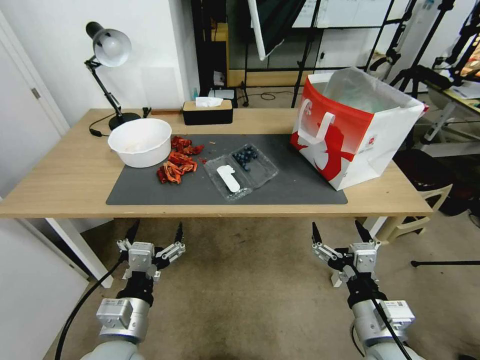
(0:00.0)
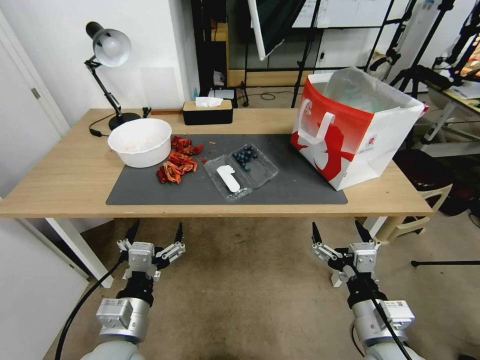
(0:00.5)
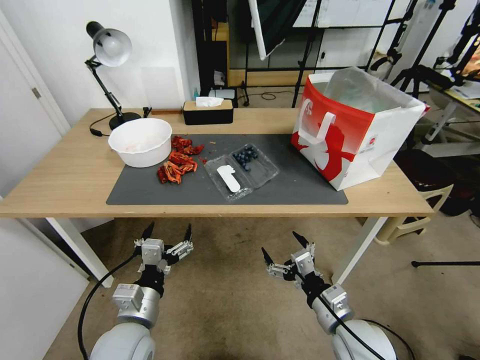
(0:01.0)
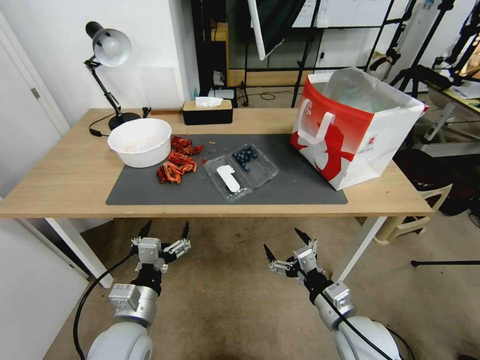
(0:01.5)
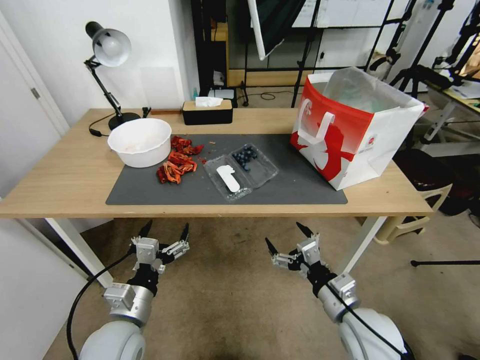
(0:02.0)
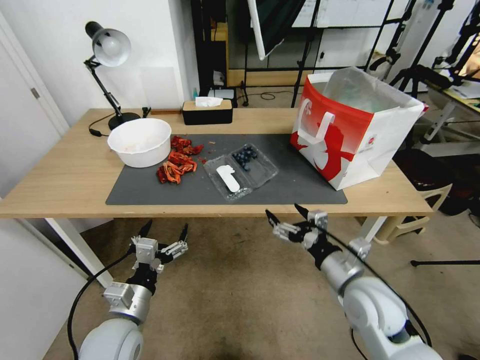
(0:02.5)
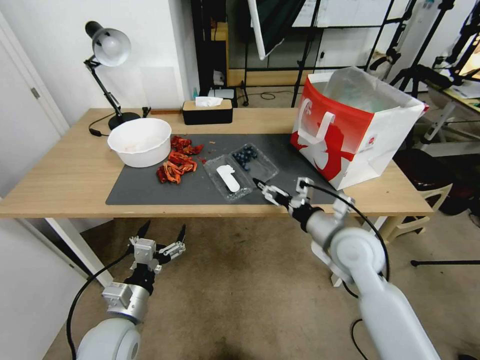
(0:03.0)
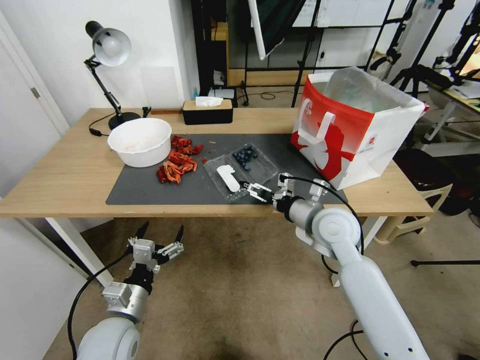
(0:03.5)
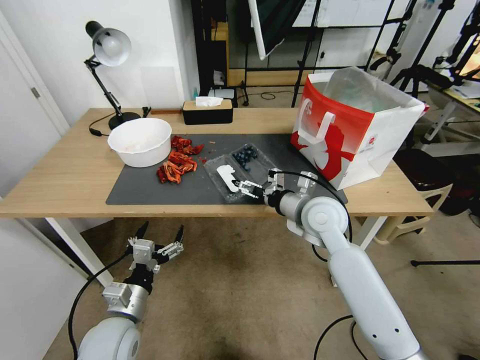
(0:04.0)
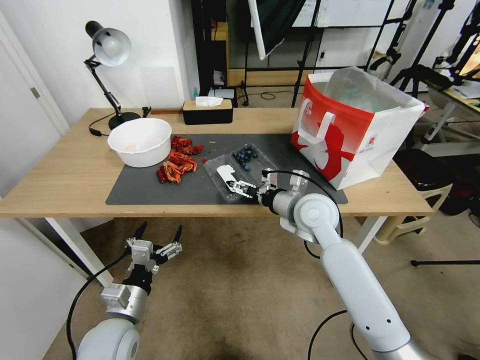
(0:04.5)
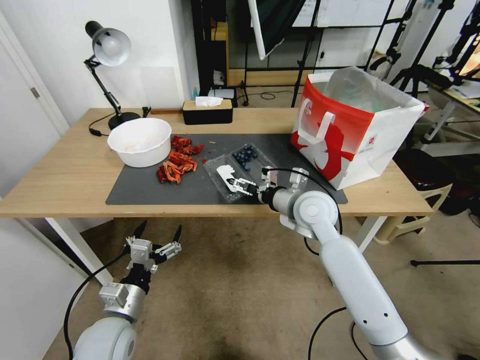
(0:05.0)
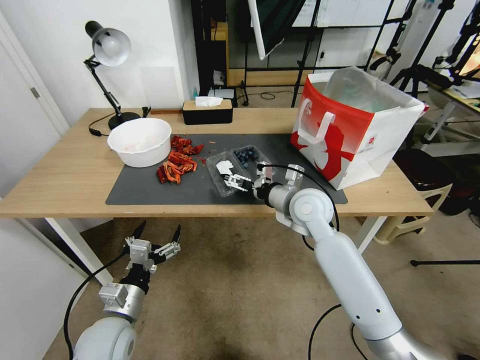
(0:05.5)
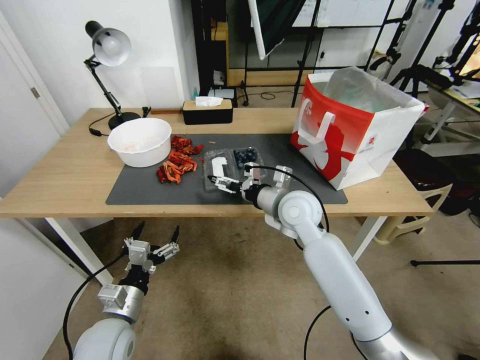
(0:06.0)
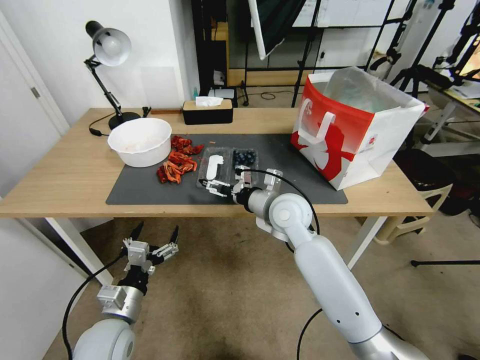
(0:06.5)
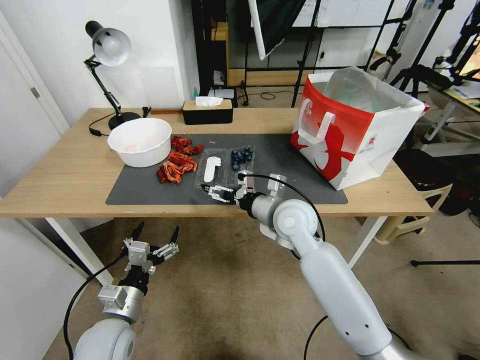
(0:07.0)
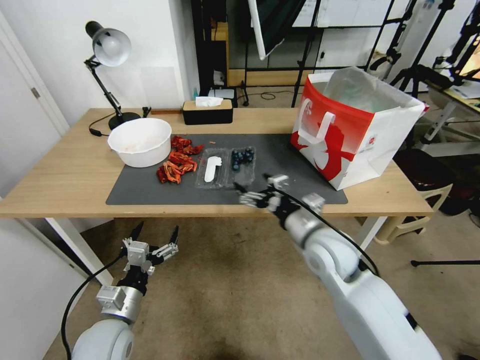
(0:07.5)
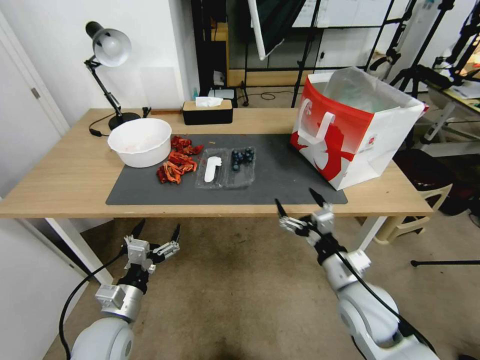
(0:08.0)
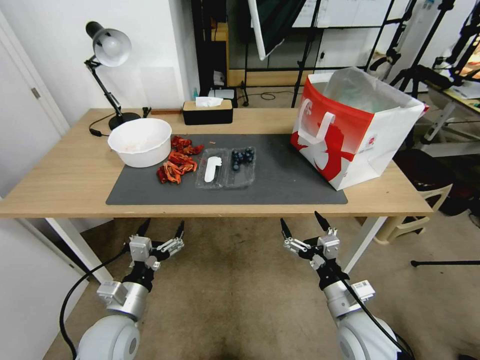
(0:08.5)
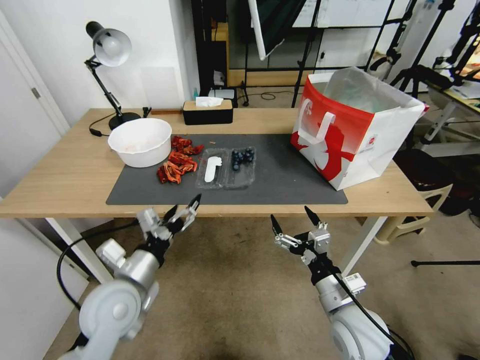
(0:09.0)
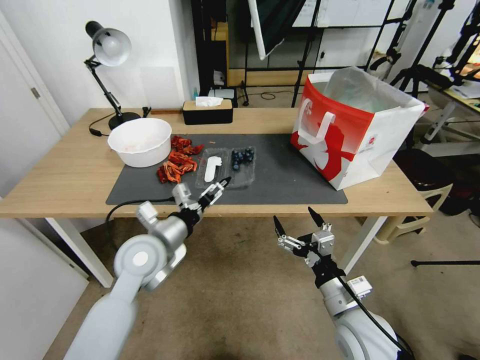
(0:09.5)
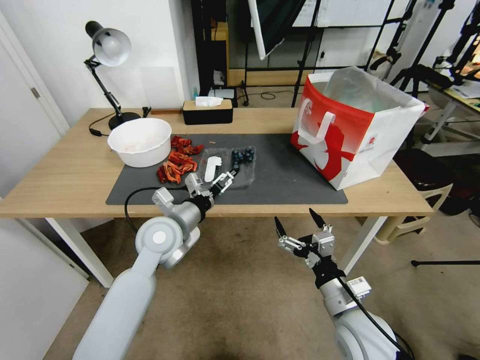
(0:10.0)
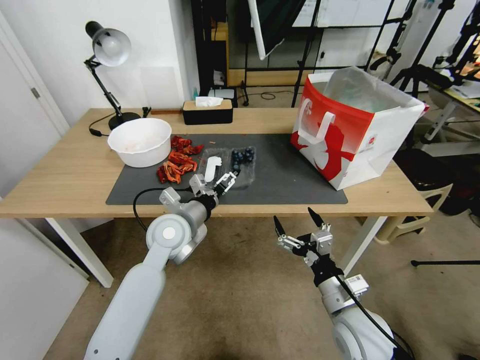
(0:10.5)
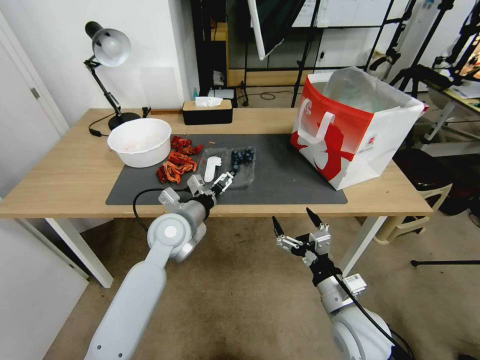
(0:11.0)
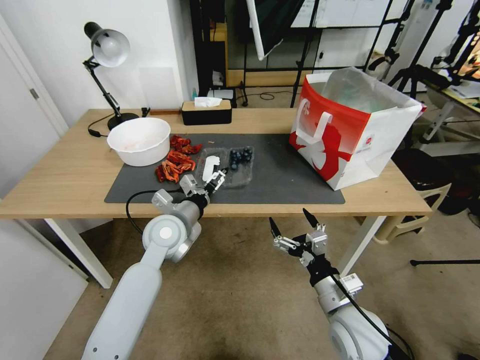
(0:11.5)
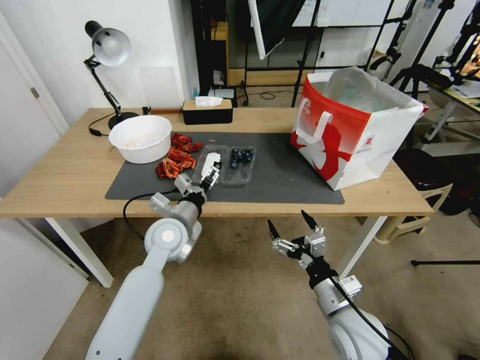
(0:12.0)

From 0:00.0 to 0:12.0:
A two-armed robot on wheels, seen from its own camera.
Task of the whole recording: Close the takeout container lid, then place the container into the takeout bag.
From 0:02.0 to 0:04.0: The right gripper travels forward and upward by approximately 20 cm.
From 0:04.0 to 0:06.0: The grippers move only a little.
From 0:06.0 to 0:08.0: The right gripper heads backward, to the right and downward, covering about 20 cm.
From 0:08.0 to 0:10.0: The right gripper ends up some 5 cm from where it was, while the left gripper travels forward, upward and to the right by some 20 cm.
From 0:10.0 to 0:12.0: The grippers stay close to where they were, moving slightly.

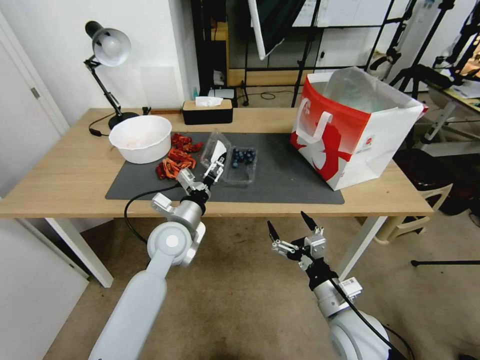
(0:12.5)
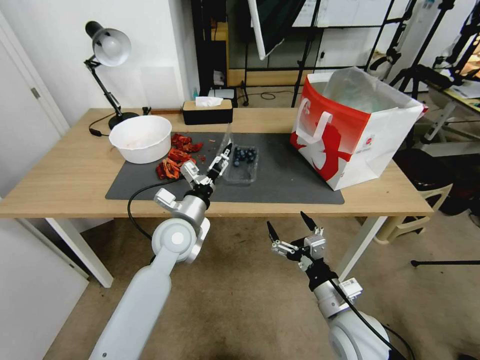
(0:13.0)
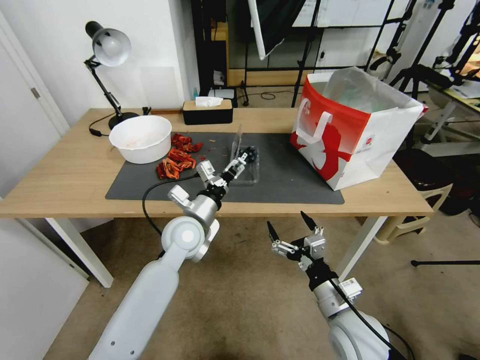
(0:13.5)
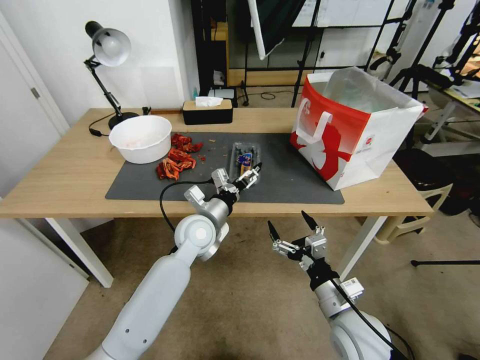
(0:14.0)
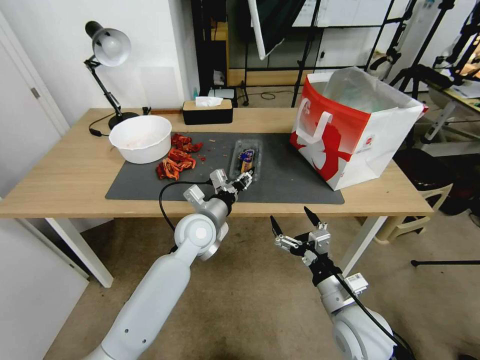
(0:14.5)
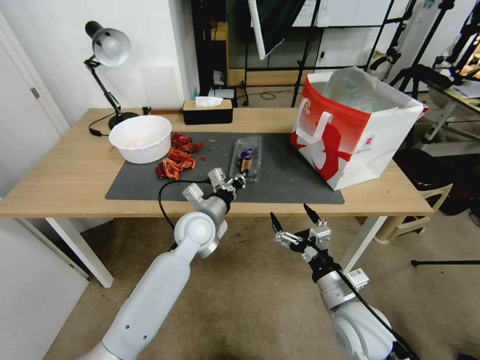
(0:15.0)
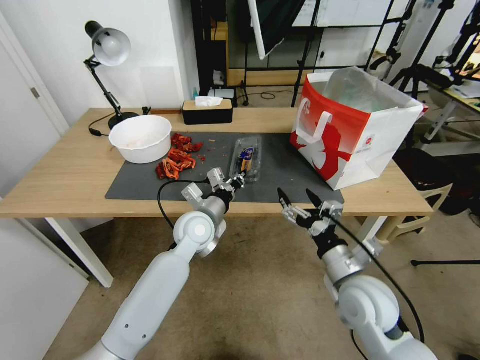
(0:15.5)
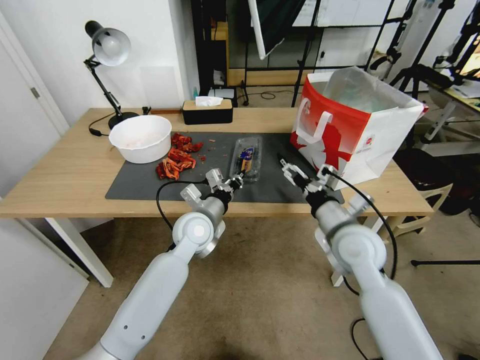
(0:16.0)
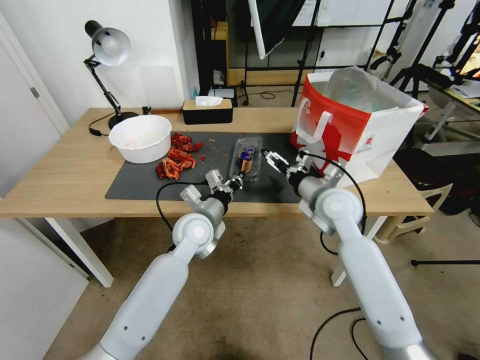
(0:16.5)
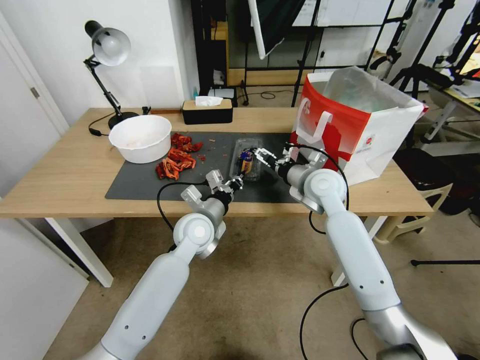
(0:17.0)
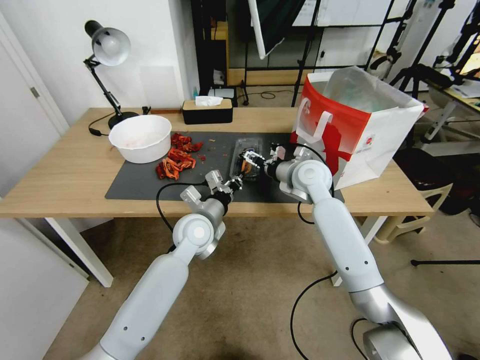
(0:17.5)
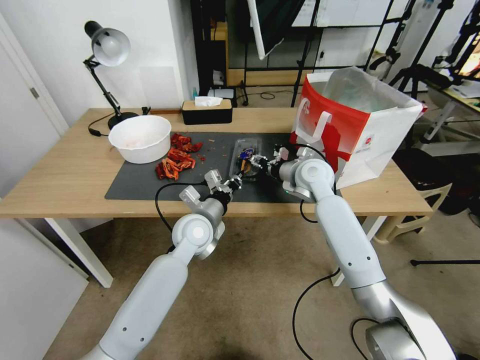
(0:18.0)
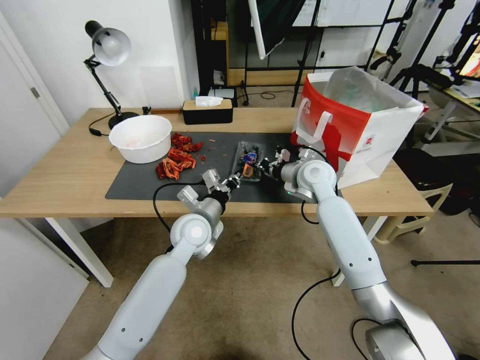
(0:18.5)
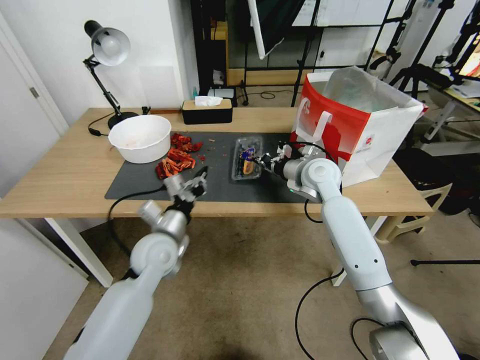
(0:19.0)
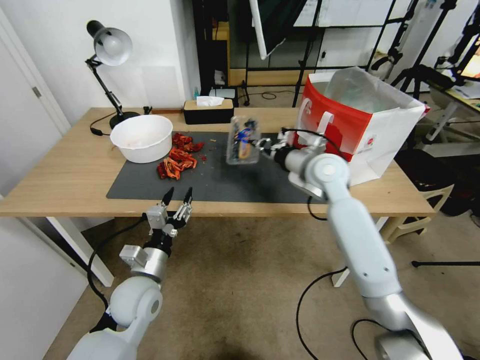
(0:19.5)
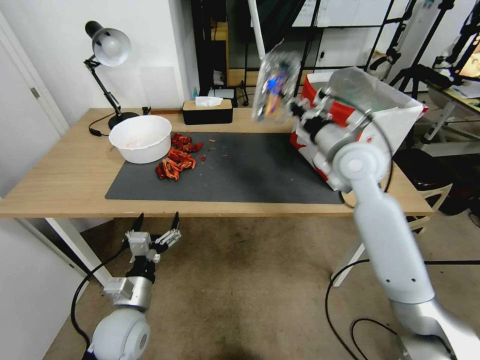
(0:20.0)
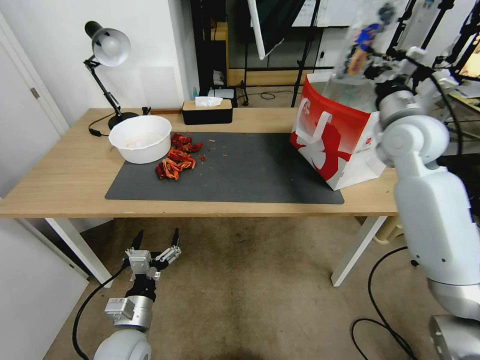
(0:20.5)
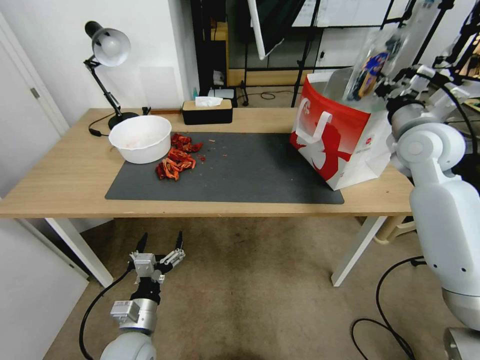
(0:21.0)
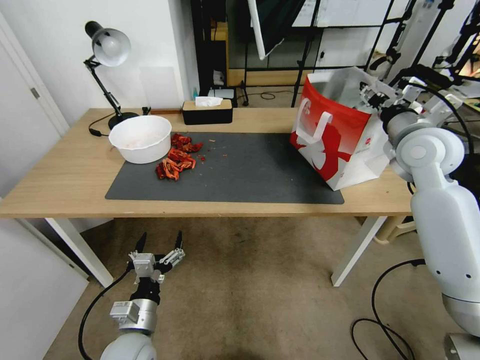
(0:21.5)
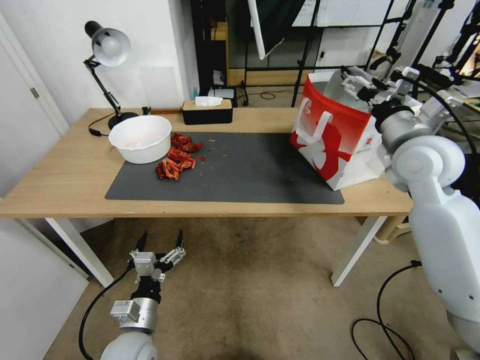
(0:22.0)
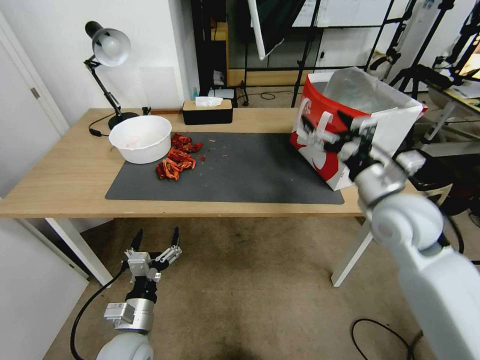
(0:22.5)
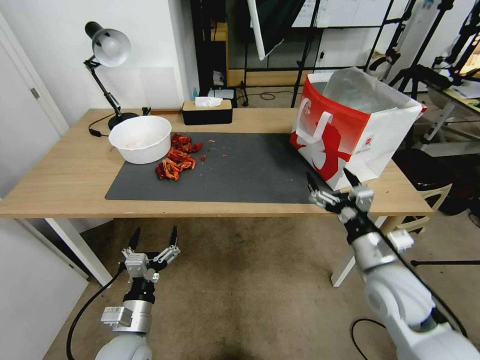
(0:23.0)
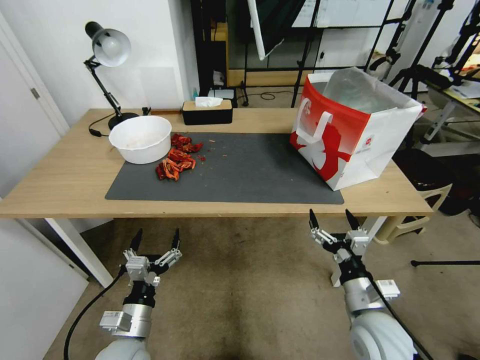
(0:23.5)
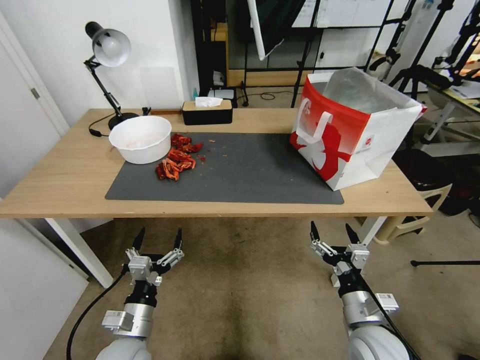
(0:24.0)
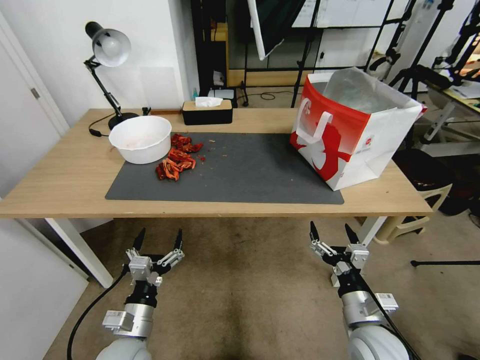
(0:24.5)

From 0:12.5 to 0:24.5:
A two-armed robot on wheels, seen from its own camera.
Task of the whole recording: Close the takeout container lid, then place the container into the takeout bag.
From 0:12.5 to 0:14.5: The left gripper shifts about 5 cm to the right, and closes.
From 0:14.5 to 0:16.5: The left gripper closes, while the right gripper goes approximately 25 cm forward and upward.
From 0:16.5 to 0:18.5: The right gripper is displaced forward by about 10 cm, and closes up.
From 0:18.5 to 0:20.5: The right gripper heads upward and to the right, covering about 20 cm, while the left gripper heads backward, to the left and downward, covering roughly 25 cm, and opens.
From 0:20.5 to 0:22.5: The right gripper shifts roughly 15 cm backward and downward, and opens.
From 0:22.5 to 0:24.5: The right gripper shifts approximately 25 cm downward and backward.
